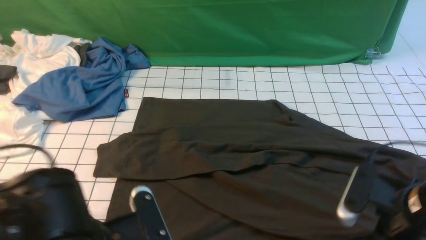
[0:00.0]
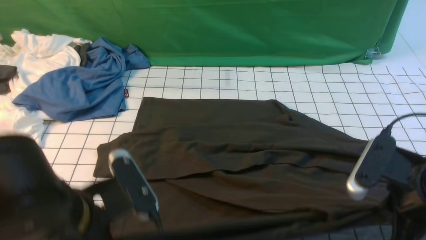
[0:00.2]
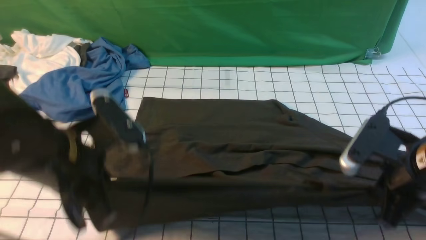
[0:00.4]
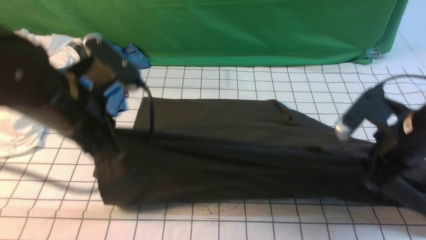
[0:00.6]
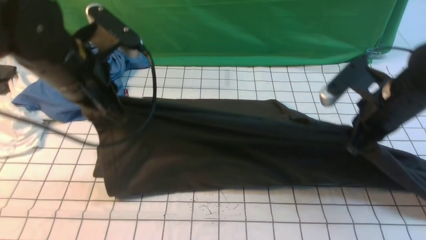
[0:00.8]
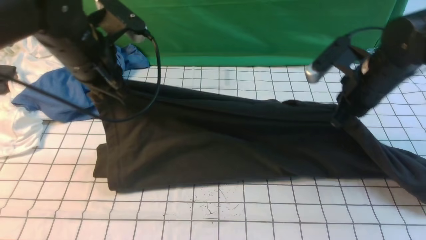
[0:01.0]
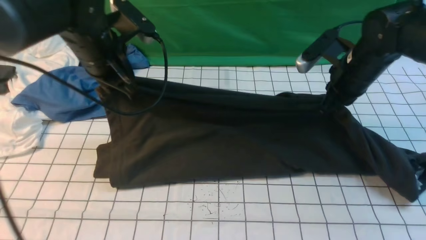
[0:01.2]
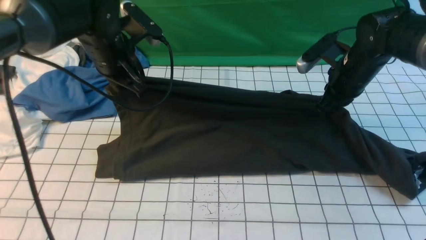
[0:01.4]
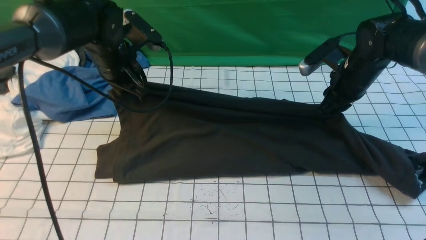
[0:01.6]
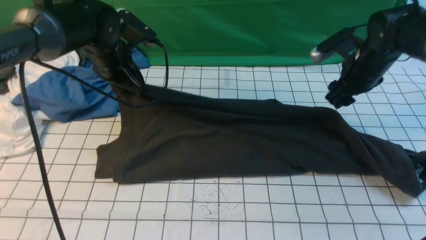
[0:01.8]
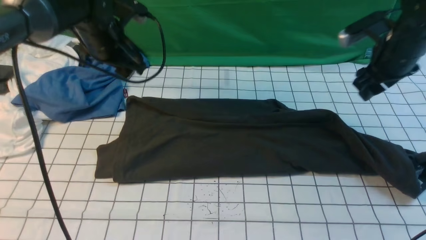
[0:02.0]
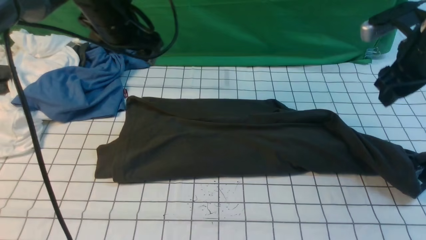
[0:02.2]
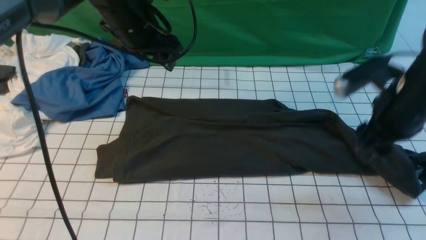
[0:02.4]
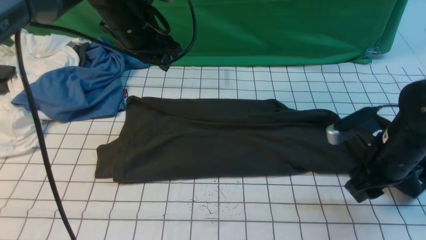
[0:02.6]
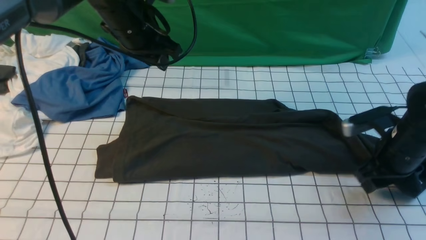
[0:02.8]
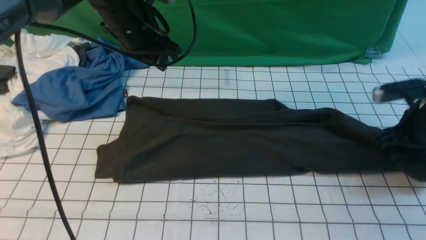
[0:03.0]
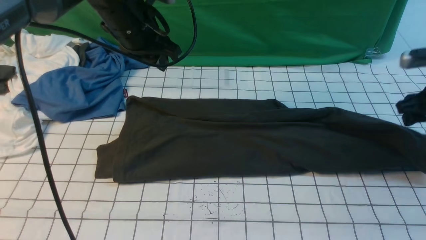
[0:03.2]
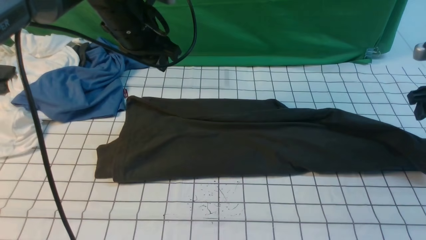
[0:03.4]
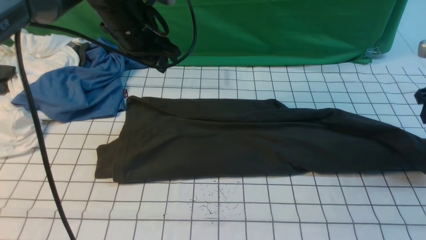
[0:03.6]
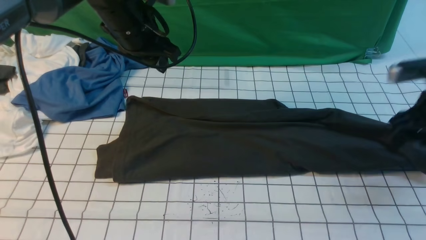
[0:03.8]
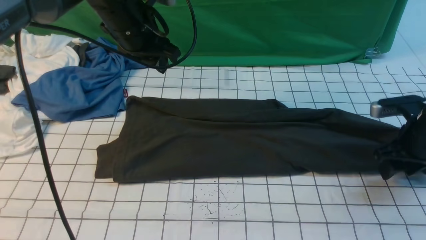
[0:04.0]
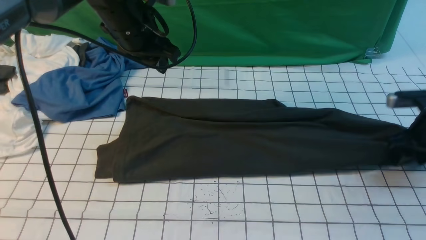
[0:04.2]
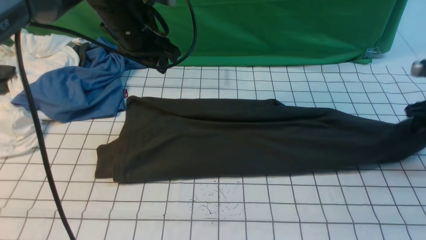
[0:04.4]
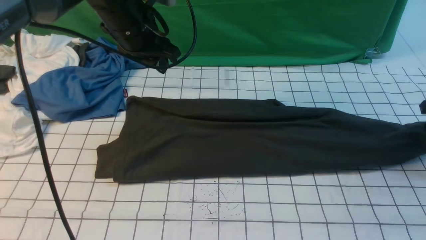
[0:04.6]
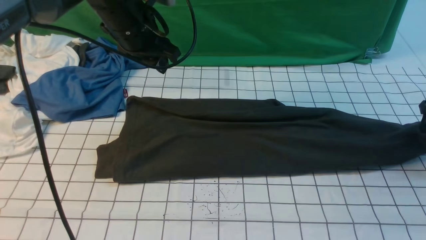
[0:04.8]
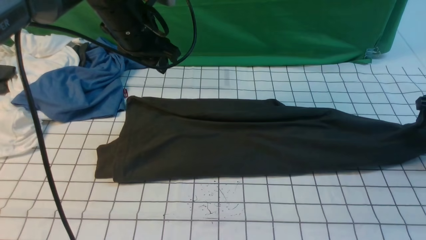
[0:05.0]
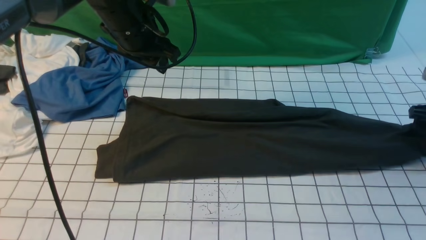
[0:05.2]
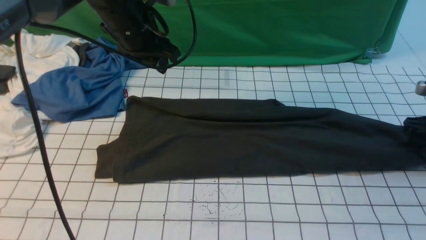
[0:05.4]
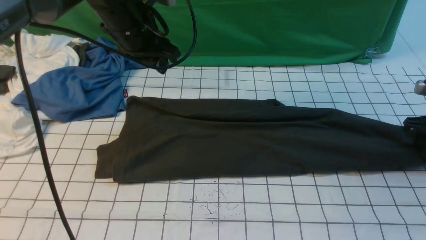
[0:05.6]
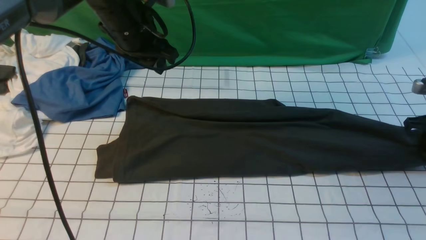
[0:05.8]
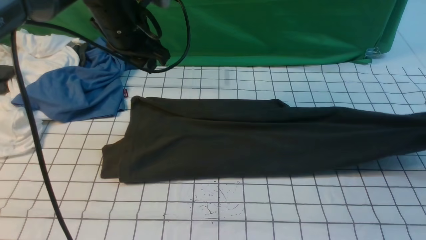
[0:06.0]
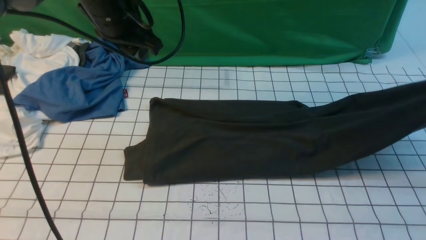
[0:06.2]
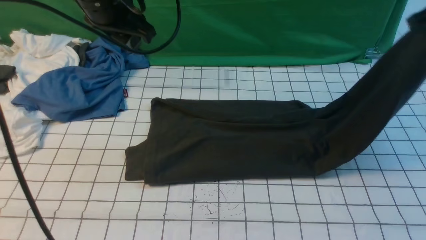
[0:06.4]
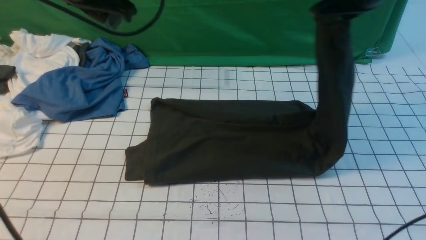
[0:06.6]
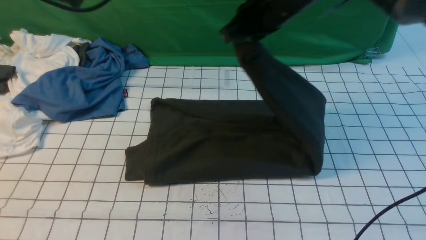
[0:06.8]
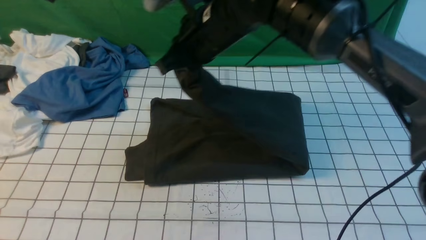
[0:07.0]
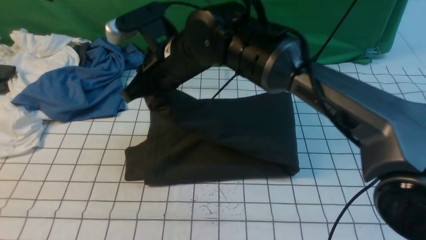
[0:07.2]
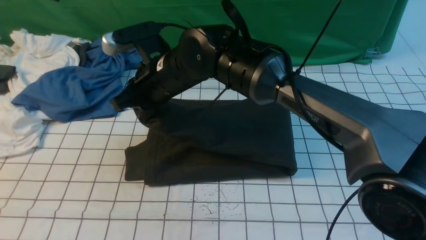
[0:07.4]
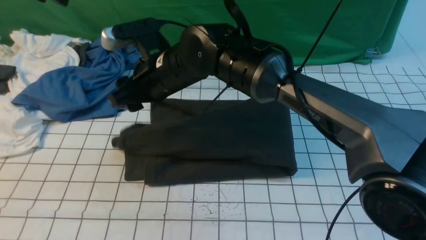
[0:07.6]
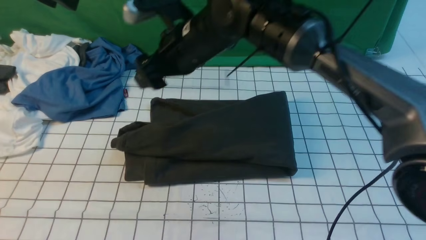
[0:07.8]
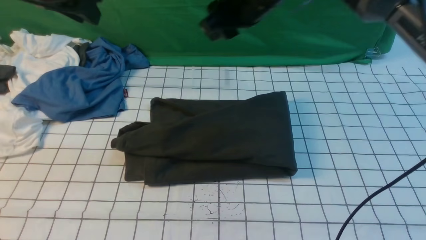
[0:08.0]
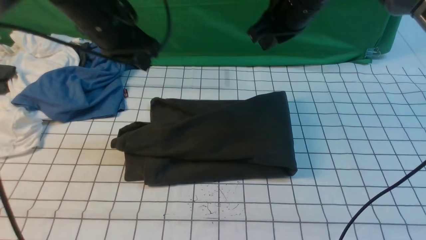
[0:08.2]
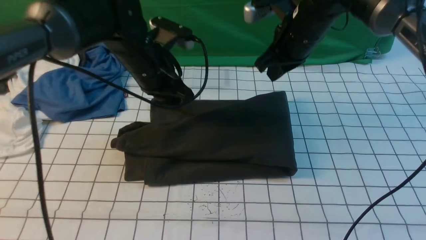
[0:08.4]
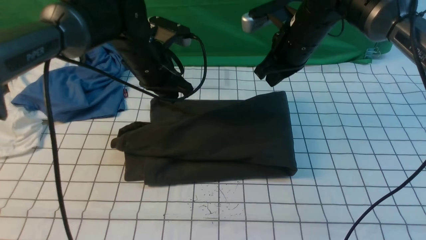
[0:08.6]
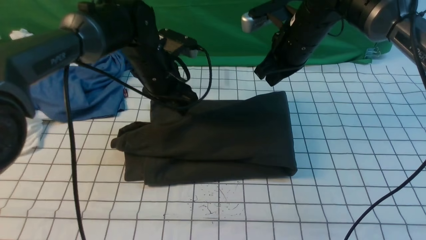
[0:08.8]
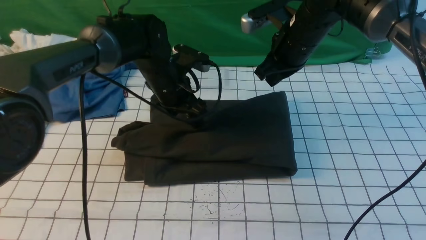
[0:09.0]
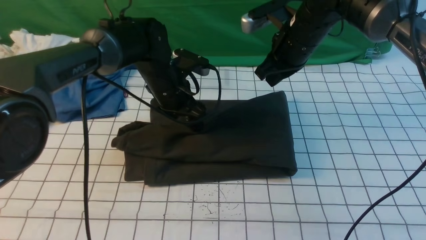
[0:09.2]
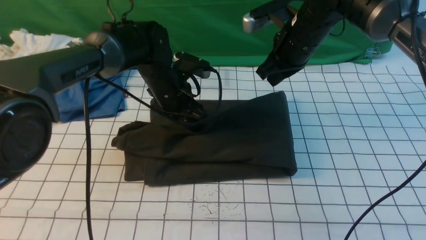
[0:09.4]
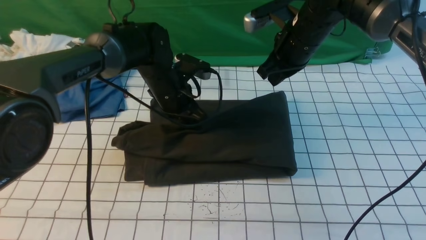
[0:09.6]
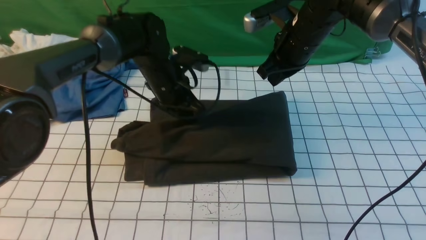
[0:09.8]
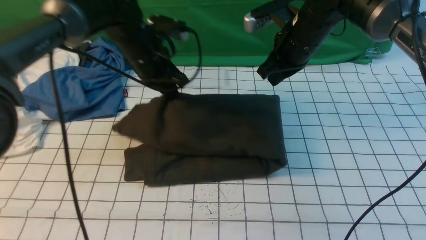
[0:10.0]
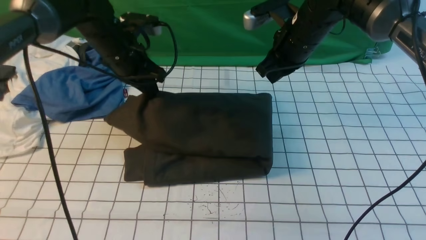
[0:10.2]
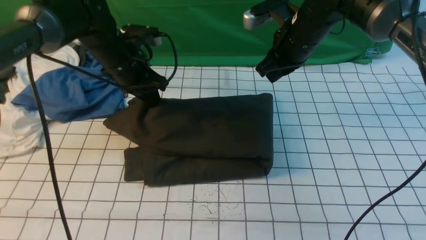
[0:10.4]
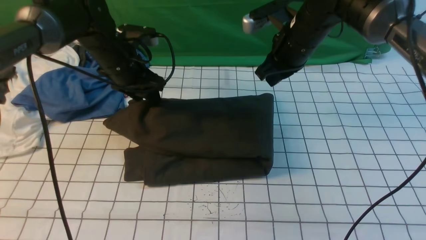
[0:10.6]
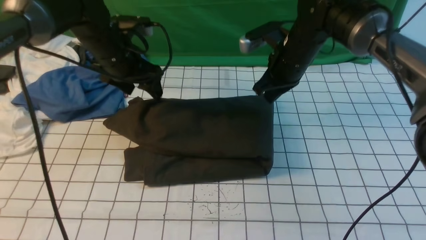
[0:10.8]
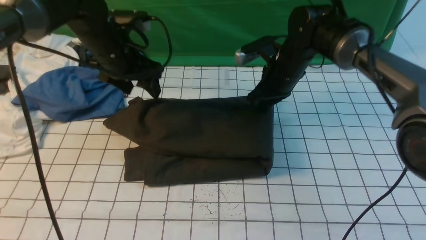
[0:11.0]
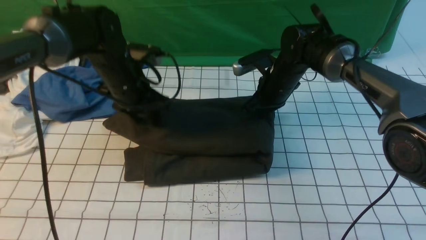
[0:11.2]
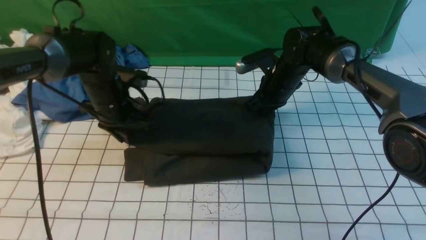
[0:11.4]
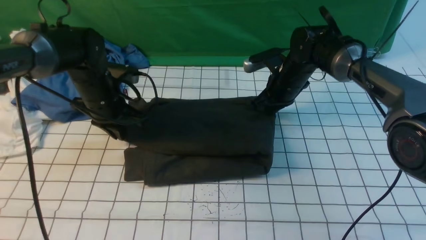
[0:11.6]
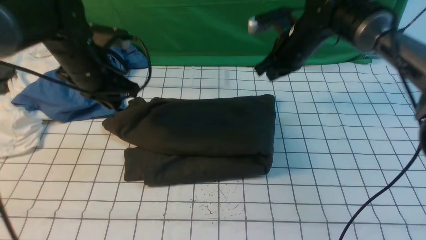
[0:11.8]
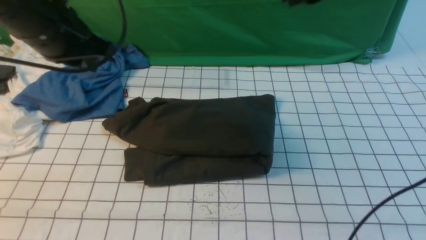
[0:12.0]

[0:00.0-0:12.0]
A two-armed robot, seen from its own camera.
Step, 0:00.2 to 0:02.2: use both arms to drag the lower edge of the fabric forward and fold it over the upper edge.
Step, 0:02.4 to 0:05.8: use the right arm to clamp the right edge of the fabric.
Step, 0:06.0 to 0:07.6: use the right arm to drag the right edge of the fabric to the left and folds it over the left edge.
0:00.0 to 0:01.6: The two grippers go some 25 cm forward. The right gripper opens.
0:01.6 to 0:03.0: The right gripper is displaced to the right and backward by roughly 10 cm. The left gripper shifts roughly 5 cm upward, and opens, then closes once more.
0:03.0 to 0:04.4: The right gripper moves to the right, about 5 cm.
0:04.4 to 0:06.0: The right gripper is displaced upward by some 5 cm, and closes its fingers.
0:06.0 to 0:07.6: The right gripper shifts some 50 cm to the left, and opens; the left gripper heads upward, to the left and backward, covering some 15 cm.
0:07.6 to 0:09.0: The right gripper shifts some 20 cm to the right and forward, and closes. The left gripper heads downward and to the right, covering roughly 30 cm, and opens up.
0:09.0 to 0:10.4: The left gripper shifts about 10 cm to the left, and closes up.
0:10.4 to 0:12.0: The right gripper goes roughly 15 cm upward, while the left gripper is displaced backward and upward by approximately 20 cm, and opens, then closes again.

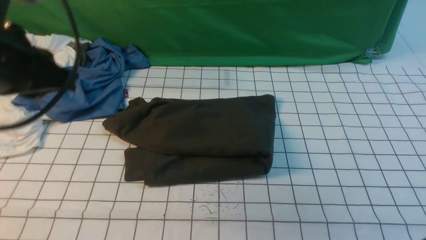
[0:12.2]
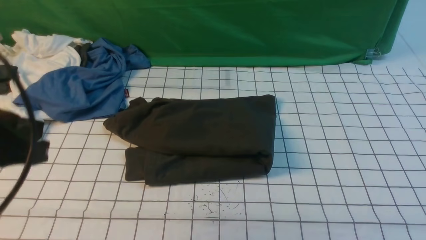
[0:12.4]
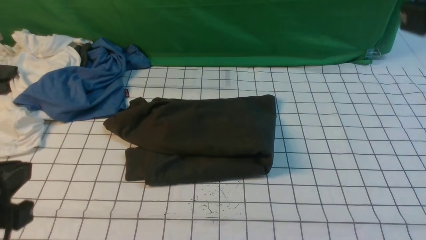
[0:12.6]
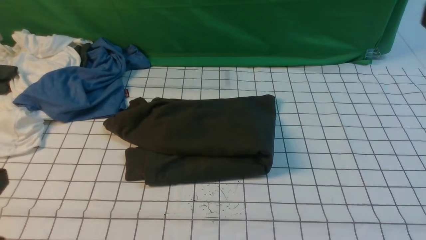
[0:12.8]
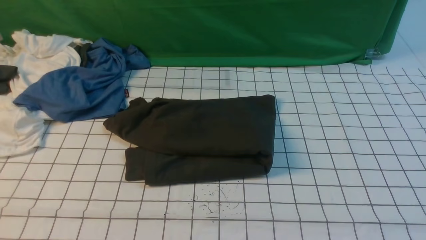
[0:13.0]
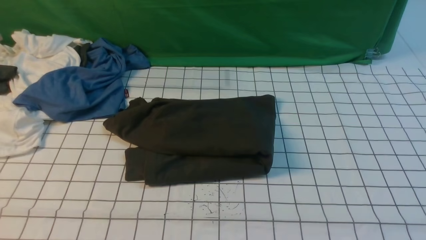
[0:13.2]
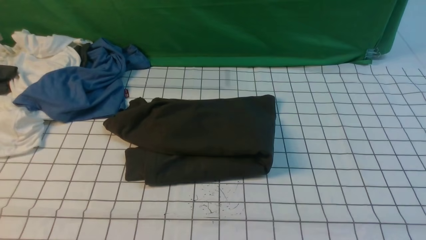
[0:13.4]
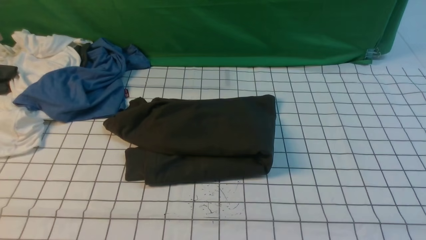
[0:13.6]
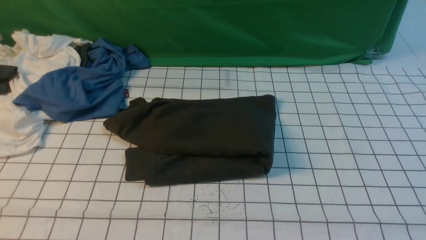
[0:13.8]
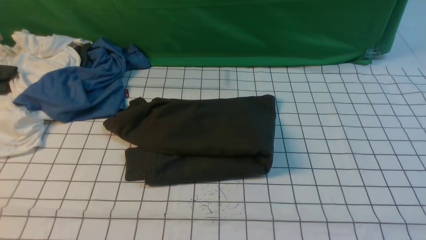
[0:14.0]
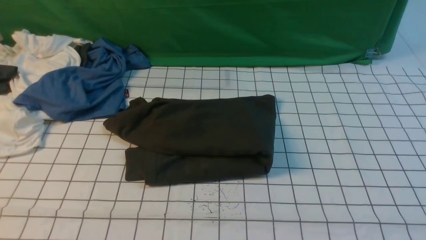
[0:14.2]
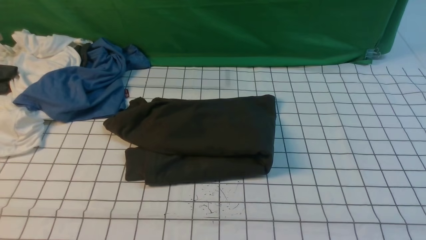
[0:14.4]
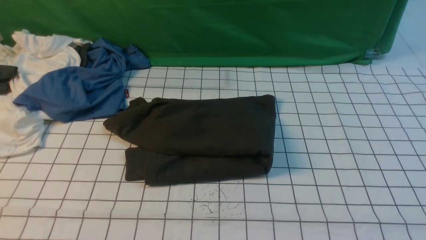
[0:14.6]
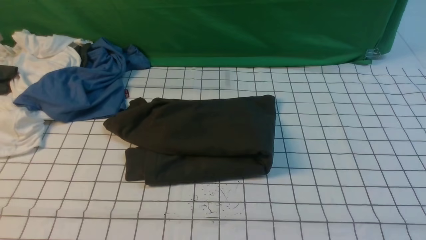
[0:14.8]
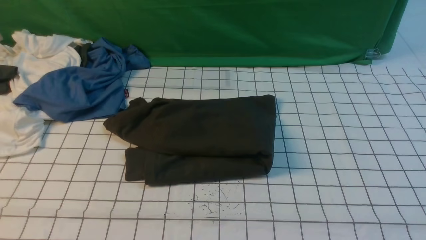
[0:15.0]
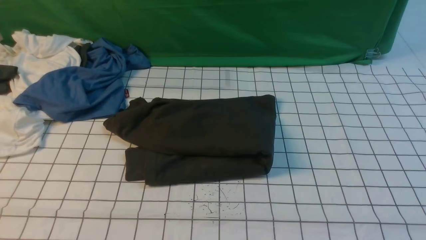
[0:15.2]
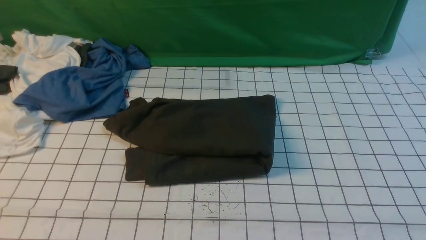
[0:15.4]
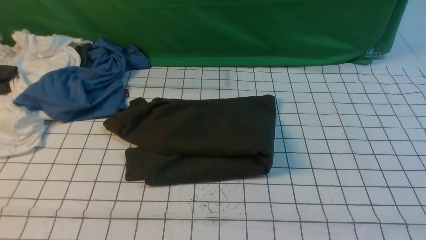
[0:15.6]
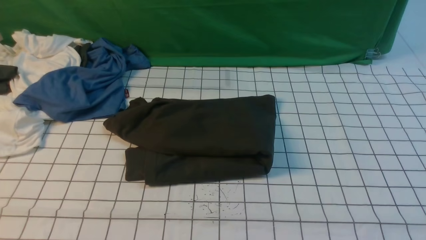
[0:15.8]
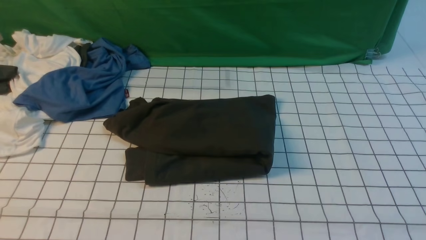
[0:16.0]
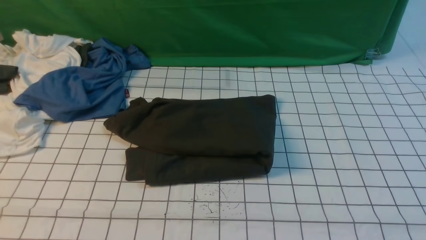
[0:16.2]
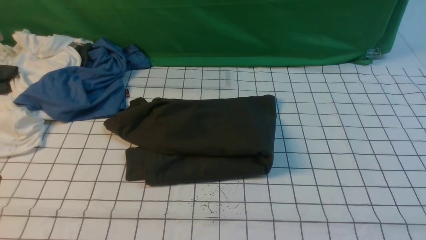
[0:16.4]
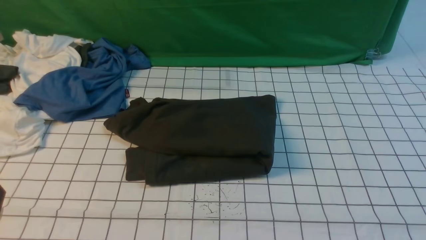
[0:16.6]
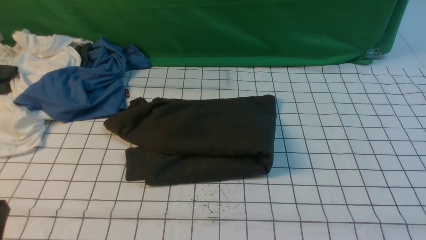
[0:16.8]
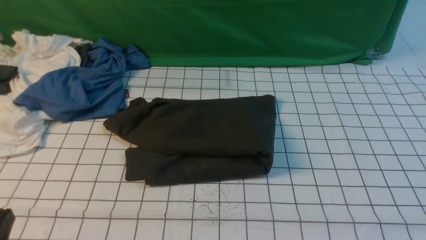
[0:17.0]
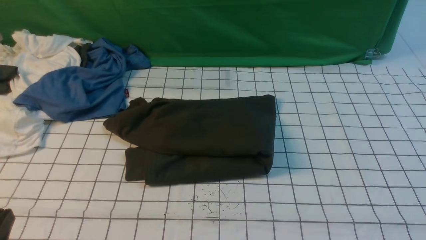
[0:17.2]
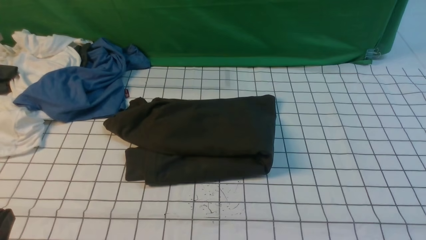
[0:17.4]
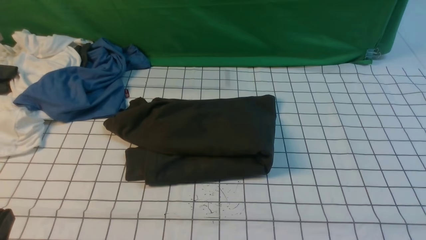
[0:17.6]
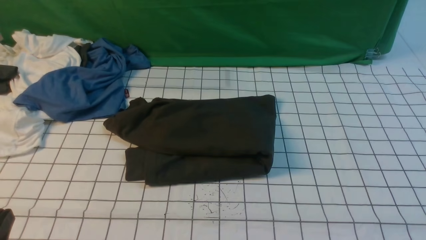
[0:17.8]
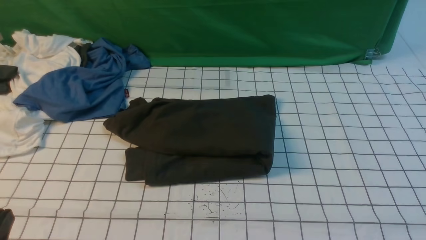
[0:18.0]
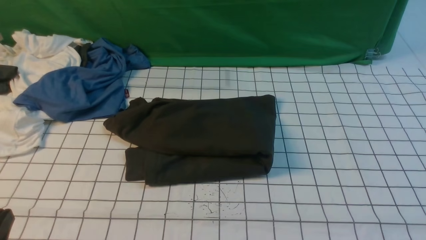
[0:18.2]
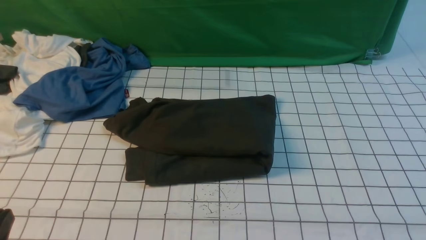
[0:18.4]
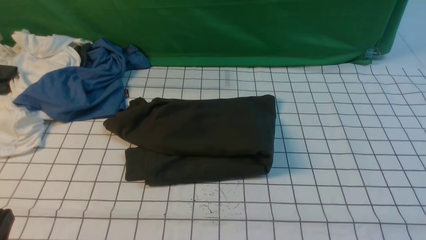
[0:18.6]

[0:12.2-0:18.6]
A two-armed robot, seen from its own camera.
0:12.2 to 0:13.8: The left gripper moves backward and downward, some 20 cm.
0:17.0 to 0:18.6: Both grippers stay put.
